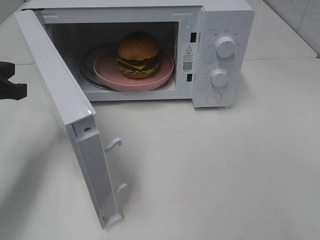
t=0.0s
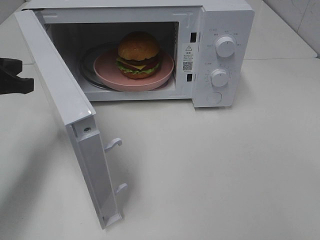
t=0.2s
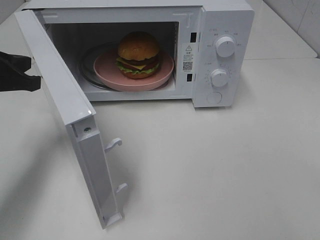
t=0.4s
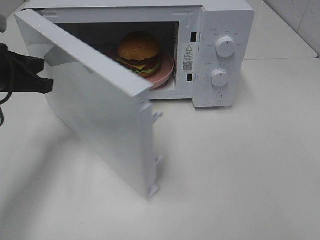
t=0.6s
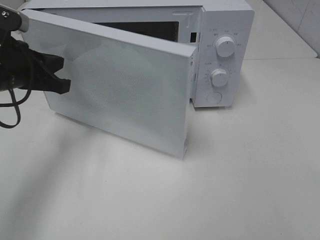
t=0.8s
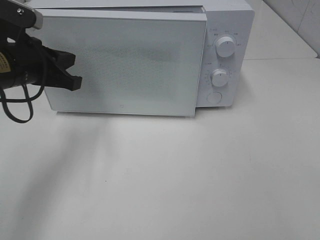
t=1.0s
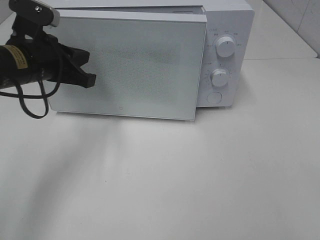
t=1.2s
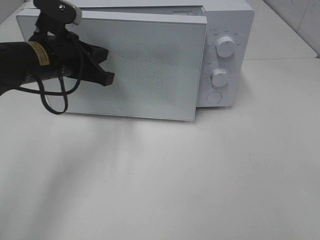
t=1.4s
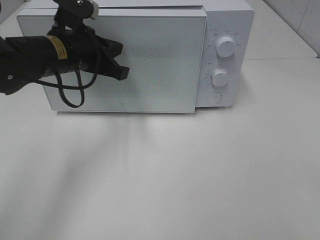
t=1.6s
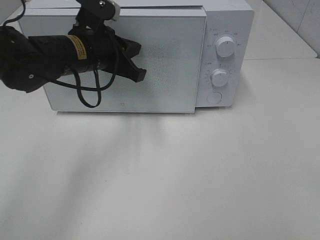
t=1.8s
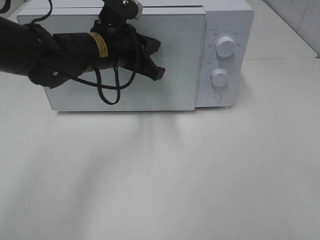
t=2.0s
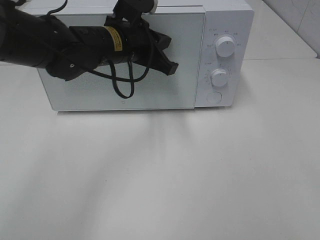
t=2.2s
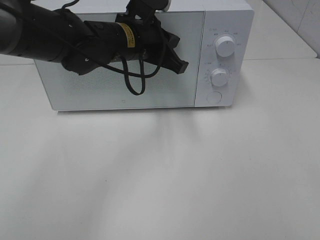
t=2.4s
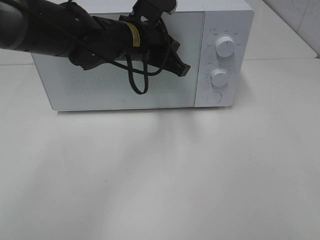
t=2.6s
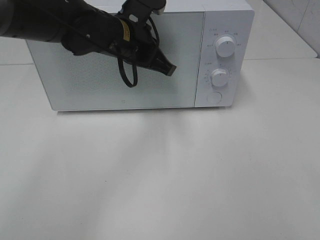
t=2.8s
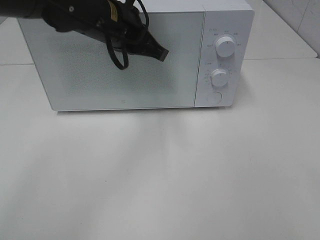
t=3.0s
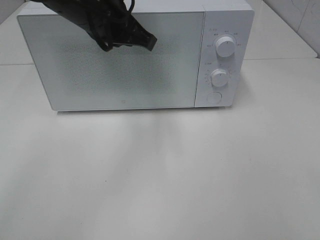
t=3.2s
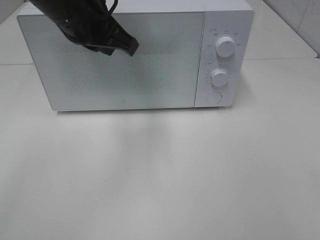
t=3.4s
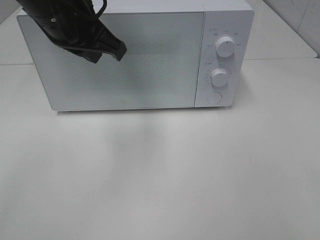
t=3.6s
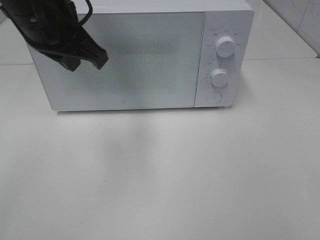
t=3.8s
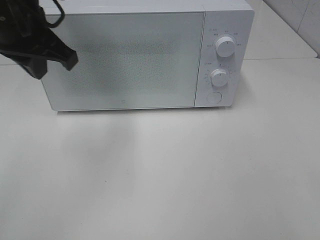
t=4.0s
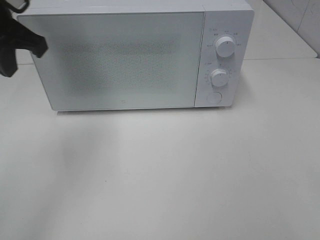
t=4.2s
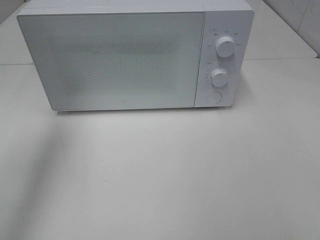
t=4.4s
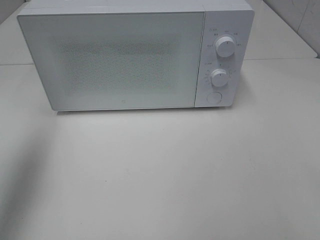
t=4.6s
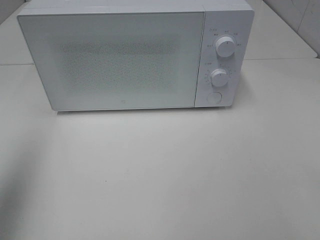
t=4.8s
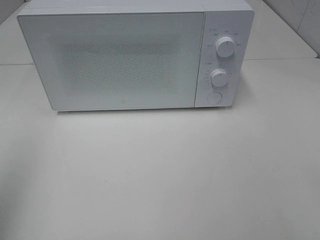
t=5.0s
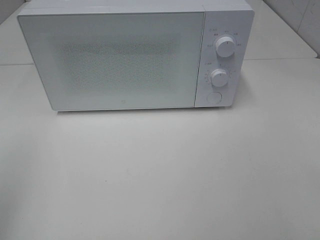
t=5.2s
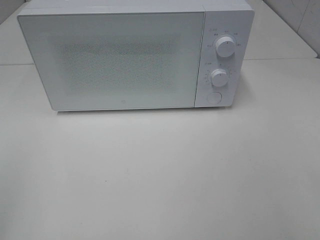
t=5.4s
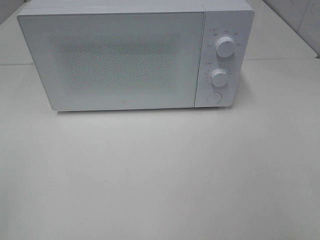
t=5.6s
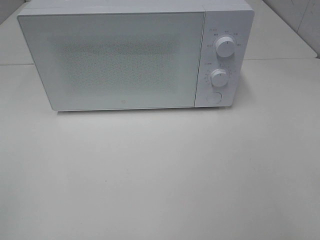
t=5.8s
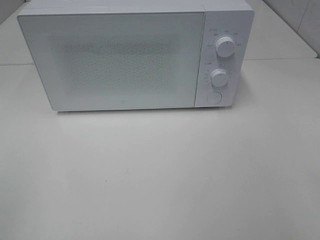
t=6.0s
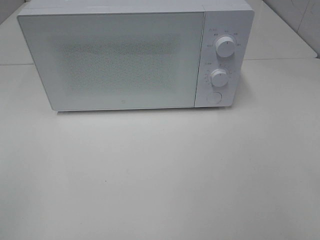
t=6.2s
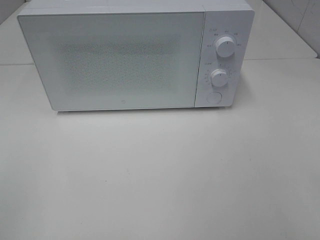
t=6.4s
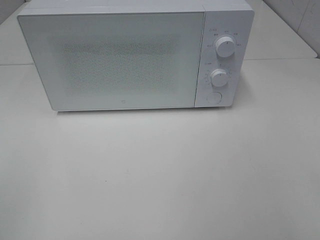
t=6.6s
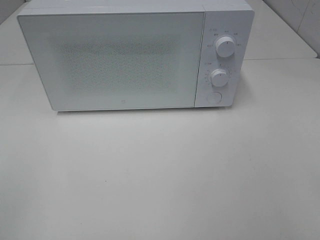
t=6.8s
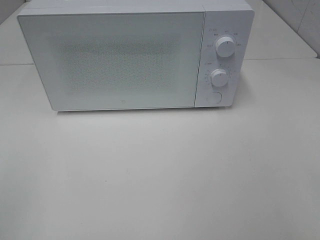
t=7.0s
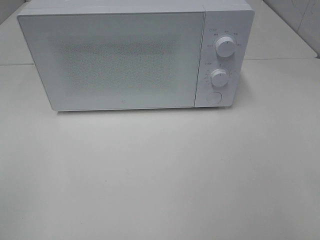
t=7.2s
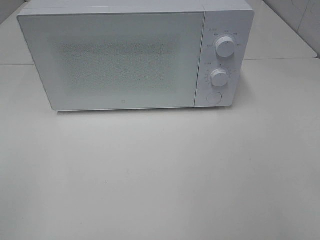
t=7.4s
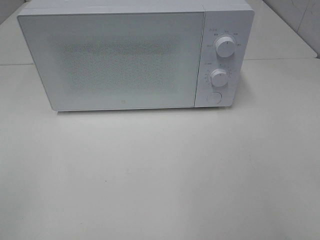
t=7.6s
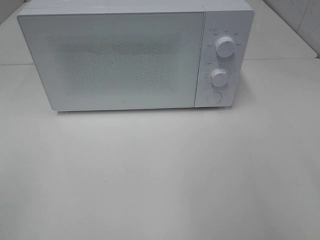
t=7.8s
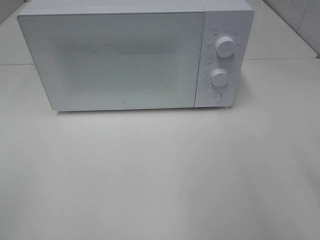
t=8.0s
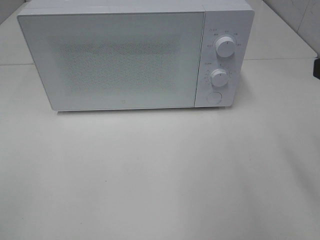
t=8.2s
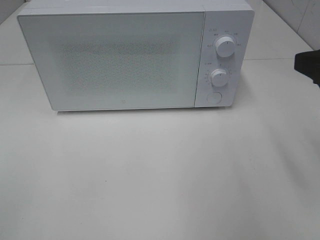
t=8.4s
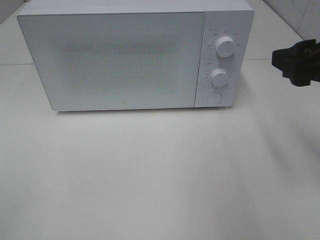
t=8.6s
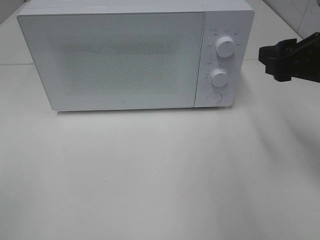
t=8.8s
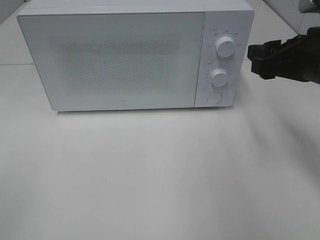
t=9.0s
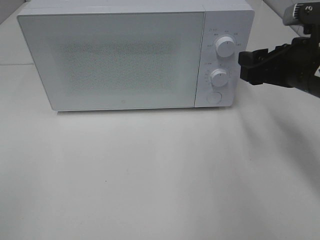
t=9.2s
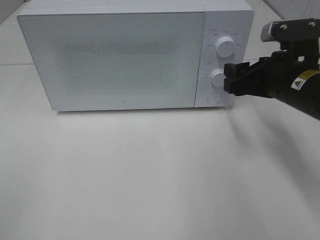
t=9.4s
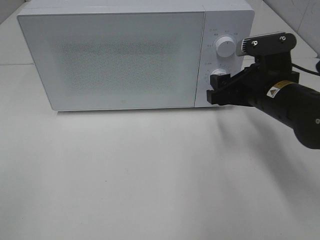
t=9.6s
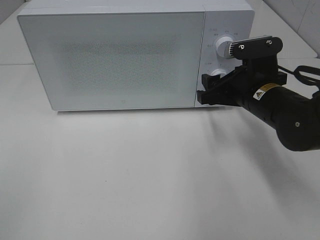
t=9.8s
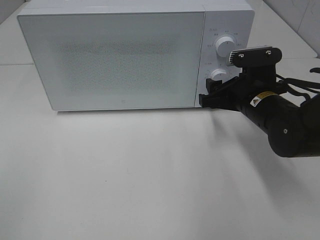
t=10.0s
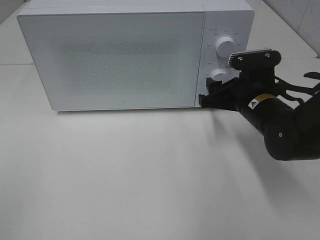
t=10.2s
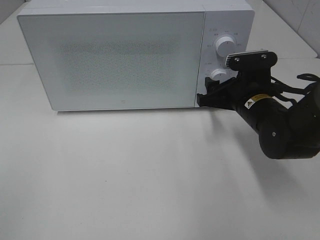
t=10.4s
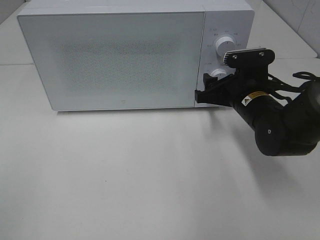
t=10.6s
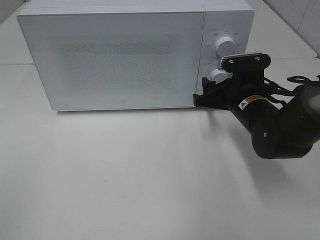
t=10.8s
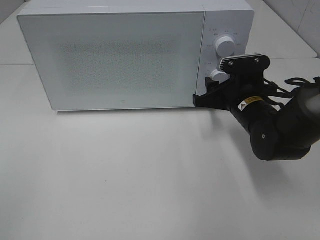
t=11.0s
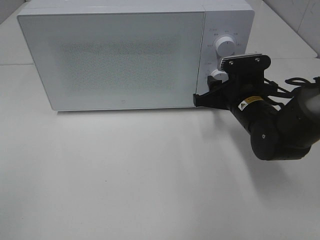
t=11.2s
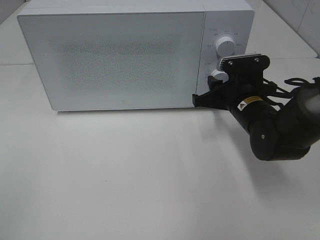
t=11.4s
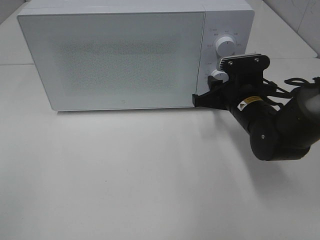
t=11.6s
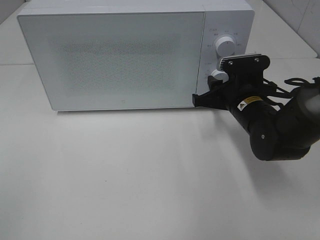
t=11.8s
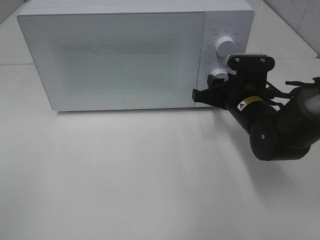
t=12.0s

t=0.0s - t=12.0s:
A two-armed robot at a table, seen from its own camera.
Task of the whole recording: Heat the burger.
Step, t=0.0s - t=2.4s: Left hand: close the microwave door.
t=0.0s - t=1.6s: The left gripper moves to the right and forward, some 15 cm.
t=1.6s - t=3.0s: The left gripper moves to the right and upward, approximately 10 cm, and opens, then closes again.
t=3.0s - t=4.4s: The left gripper travels to the left by roughly 20 cm.
t=4.4s - t=6.0s: The left gripper travels backward by roughly 30 cm.
t=7.6s - t=9.0s: The right gripper travels forward by some 25 cm.
t=9.0s - t=10.4s: The right gripper travels downward, to the left and forward by about 15 cm.
t=10.4s - t=12.0s: The right gripper closes.

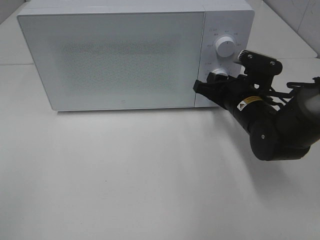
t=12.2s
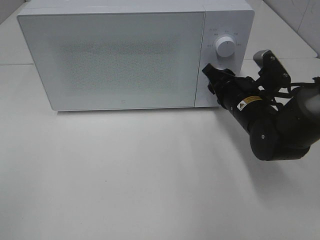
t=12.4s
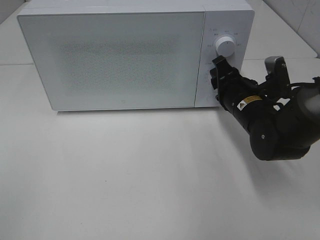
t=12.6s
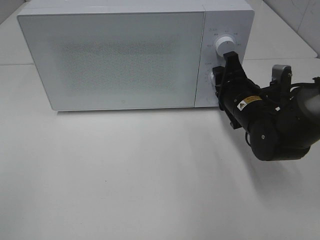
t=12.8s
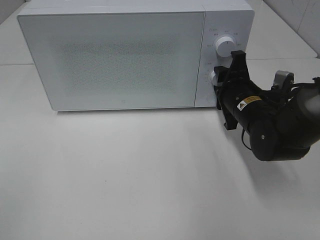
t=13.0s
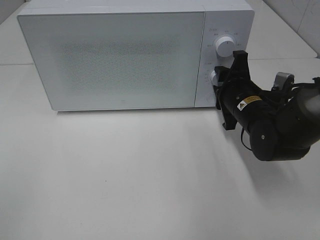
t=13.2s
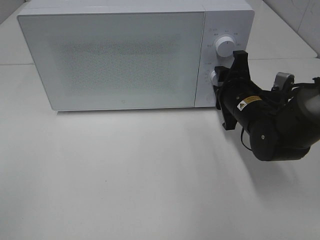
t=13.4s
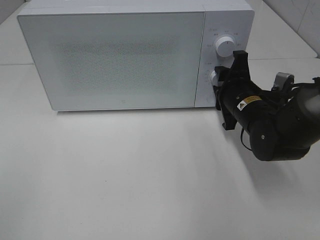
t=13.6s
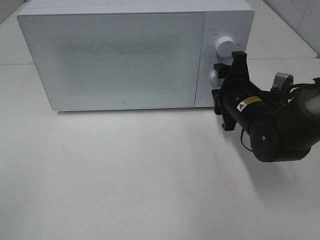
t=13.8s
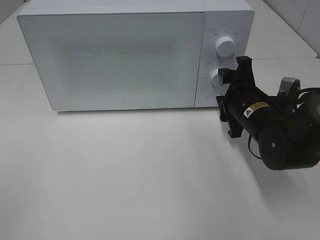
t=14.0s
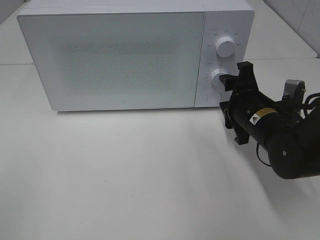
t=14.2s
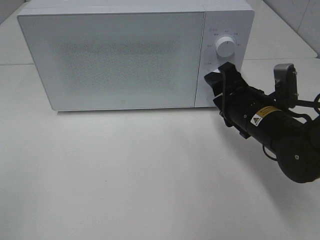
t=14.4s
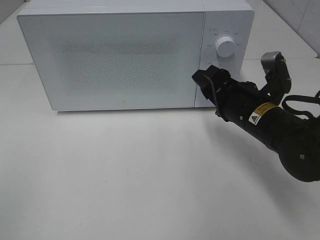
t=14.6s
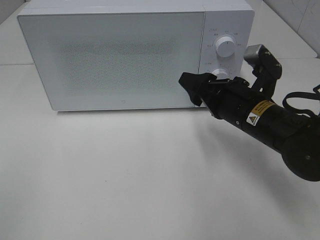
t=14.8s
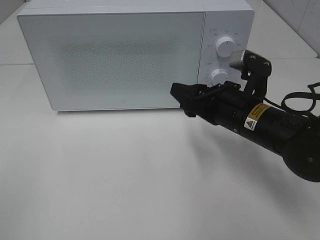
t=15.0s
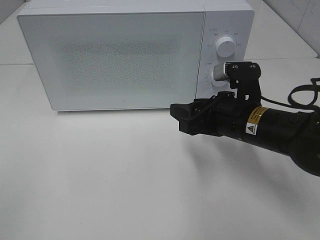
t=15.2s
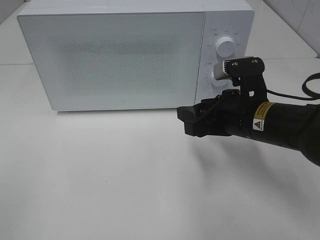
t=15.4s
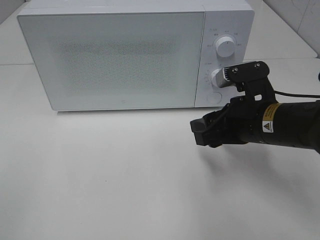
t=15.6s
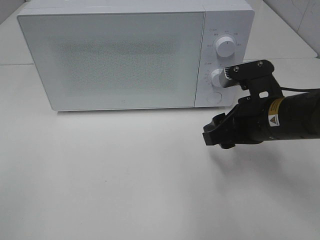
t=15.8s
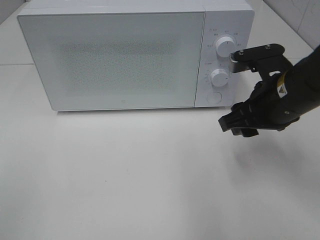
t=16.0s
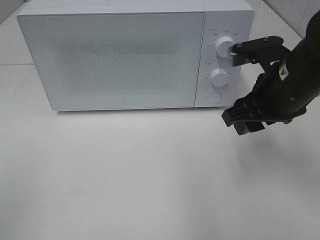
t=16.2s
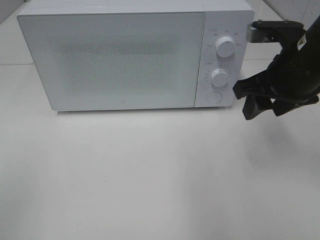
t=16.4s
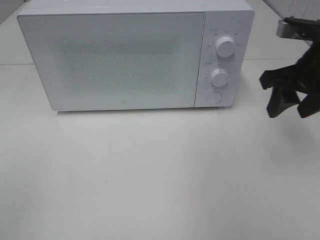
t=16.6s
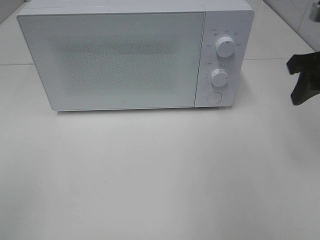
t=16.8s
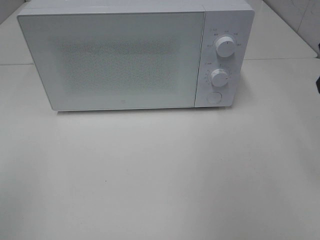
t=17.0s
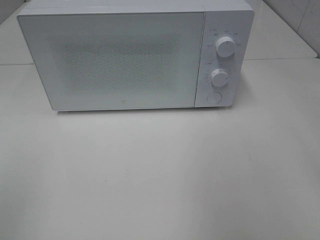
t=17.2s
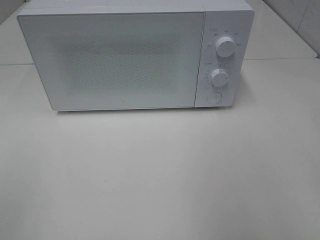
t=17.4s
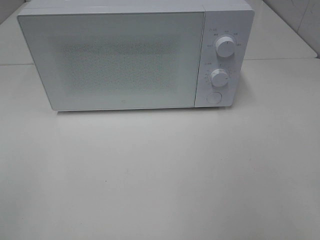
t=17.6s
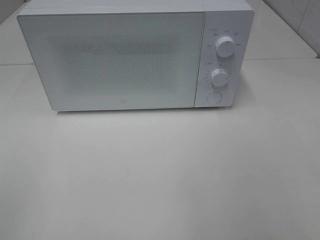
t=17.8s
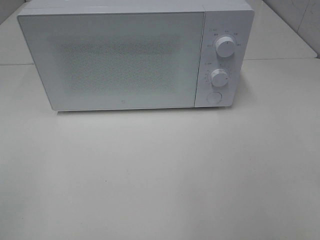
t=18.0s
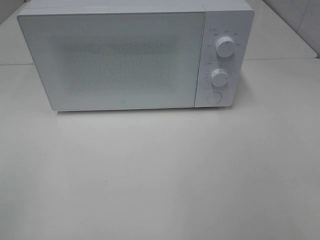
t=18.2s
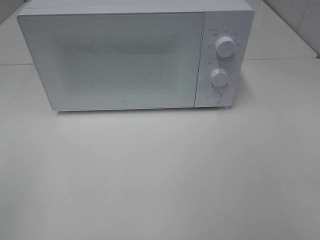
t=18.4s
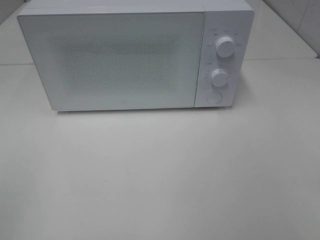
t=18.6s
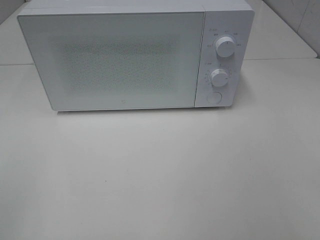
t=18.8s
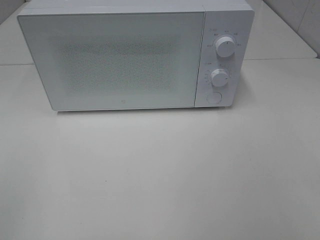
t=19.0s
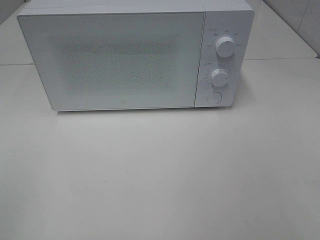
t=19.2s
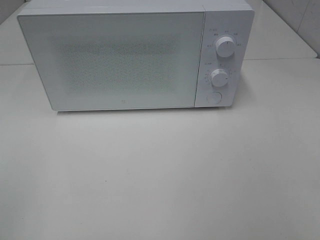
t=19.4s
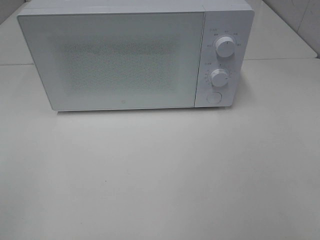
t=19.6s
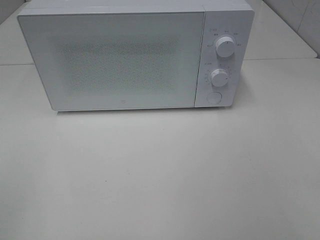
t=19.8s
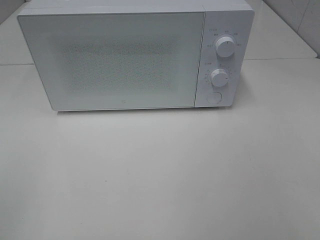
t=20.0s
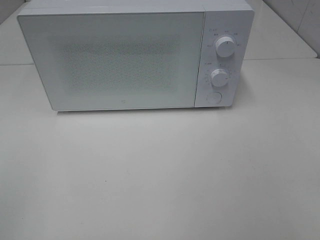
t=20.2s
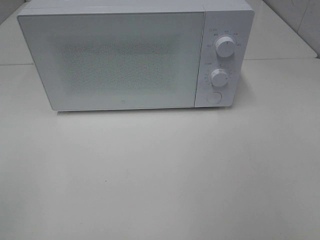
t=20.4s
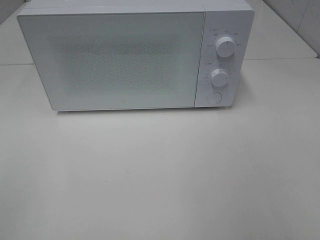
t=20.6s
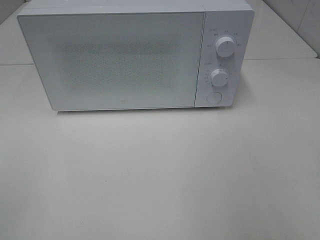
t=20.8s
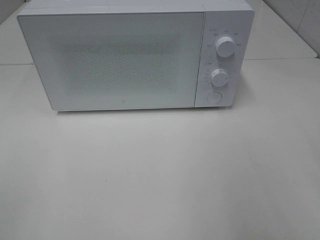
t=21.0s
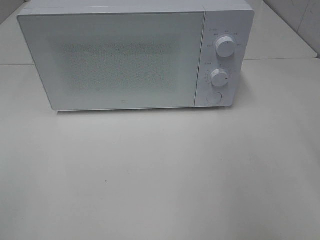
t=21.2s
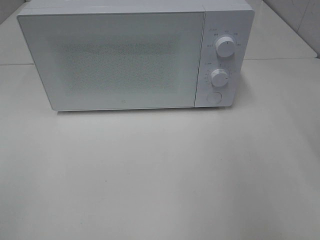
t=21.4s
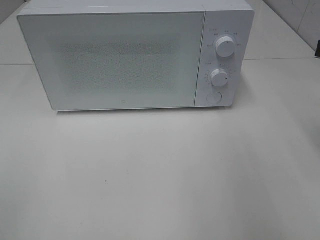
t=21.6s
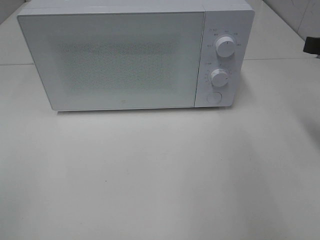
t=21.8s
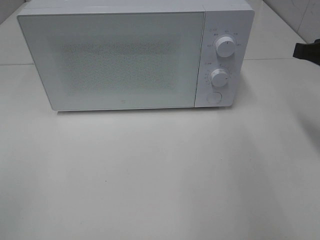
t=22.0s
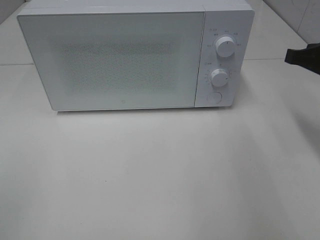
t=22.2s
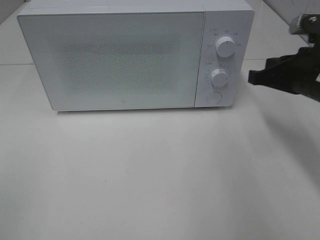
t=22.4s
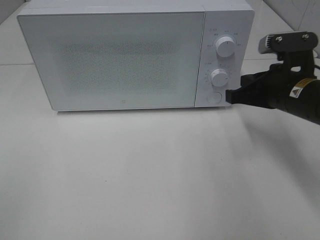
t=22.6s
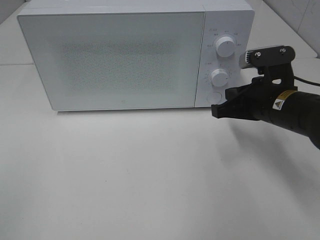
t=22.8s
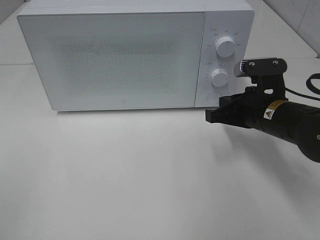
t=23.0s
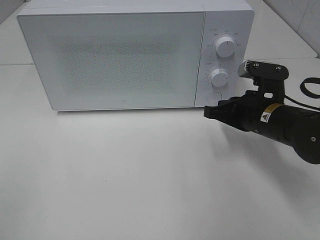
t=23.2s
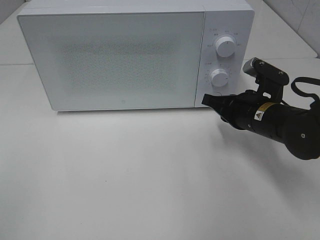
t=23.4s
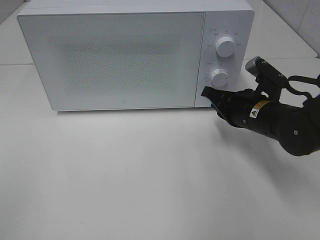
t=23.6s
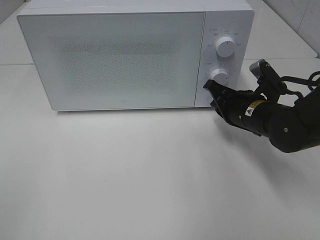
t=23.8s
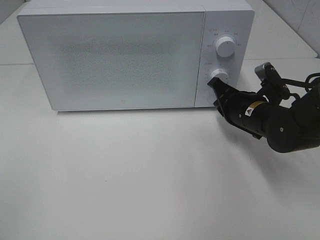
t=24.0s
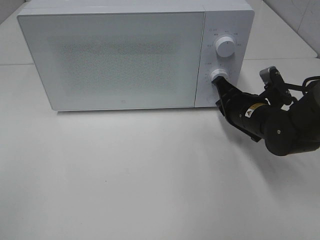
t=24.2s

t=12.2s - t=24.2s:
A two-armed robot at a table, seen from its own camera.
Task of the whole recording: Heat the burger.
t=13.8s - t=15.2s: The right gripper shifts about 5 cm backward.
t=15.2s - t=16.6s: The right gripper travels to the right and upward by about 15 cm.
t=16.6s - t=18.2s: The right gripper shifts about 25 cm backward.
t=21.2s - t=22.6s: The right gripper is displaced downward, forward and to the left by roughly 20 cm, and closes.
t=22.6s - t=24.2s: The right gripper moves downward, approximately 10 cm.
